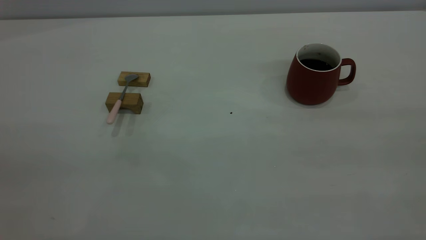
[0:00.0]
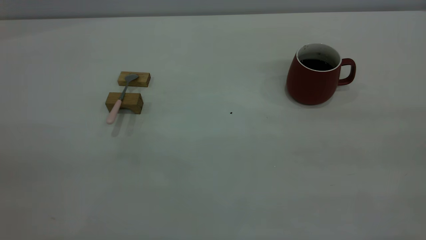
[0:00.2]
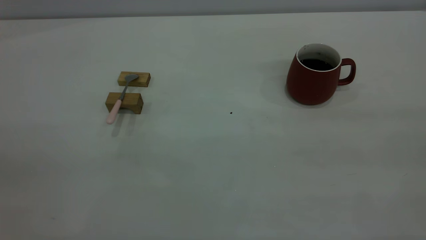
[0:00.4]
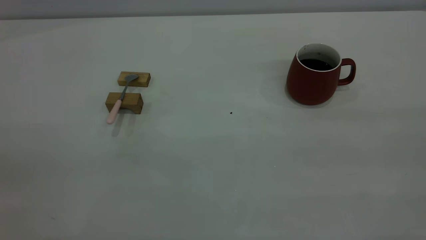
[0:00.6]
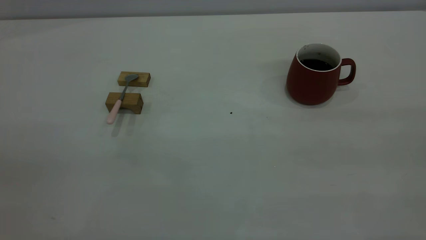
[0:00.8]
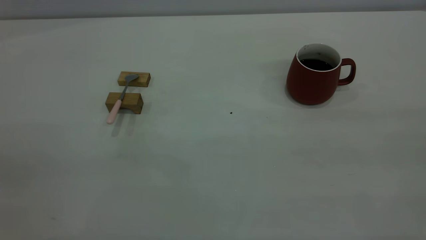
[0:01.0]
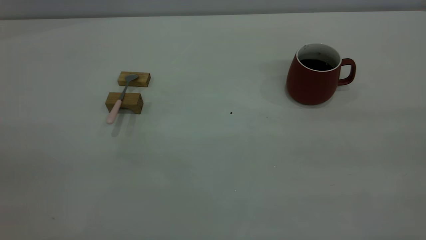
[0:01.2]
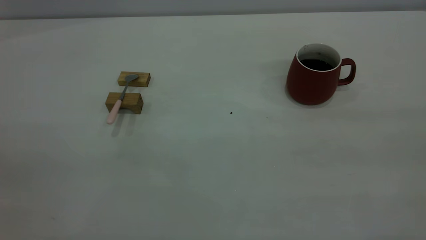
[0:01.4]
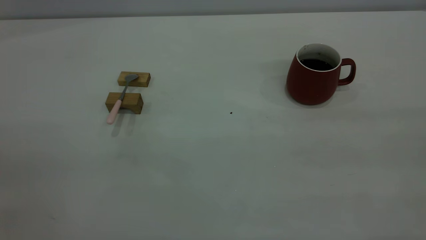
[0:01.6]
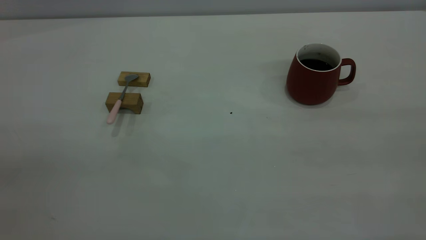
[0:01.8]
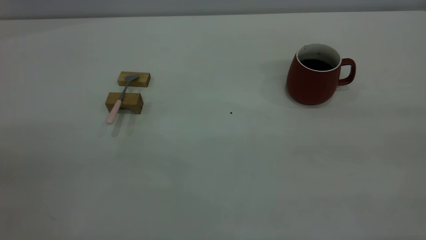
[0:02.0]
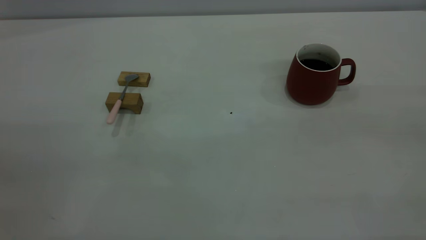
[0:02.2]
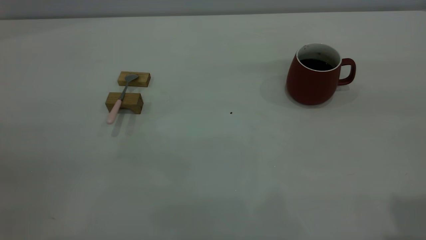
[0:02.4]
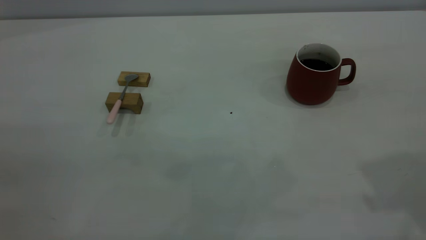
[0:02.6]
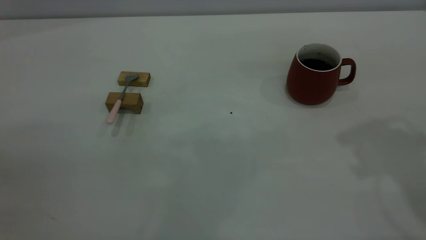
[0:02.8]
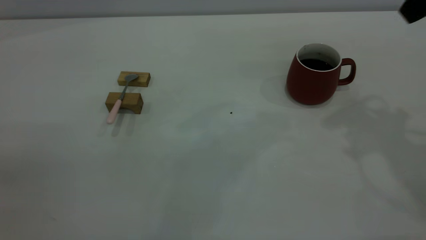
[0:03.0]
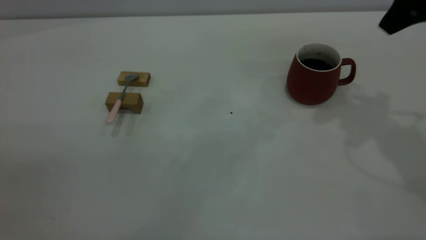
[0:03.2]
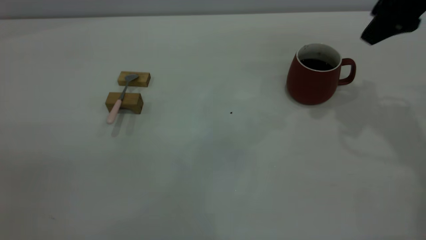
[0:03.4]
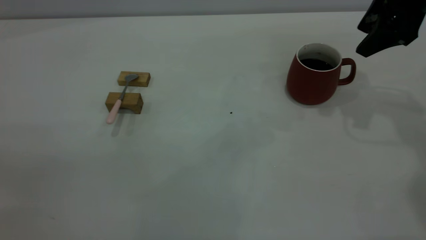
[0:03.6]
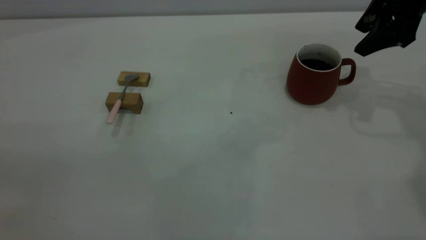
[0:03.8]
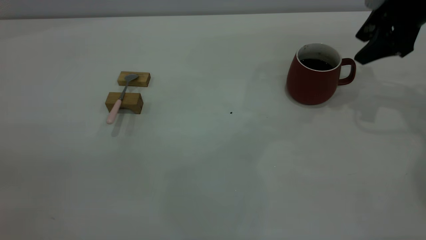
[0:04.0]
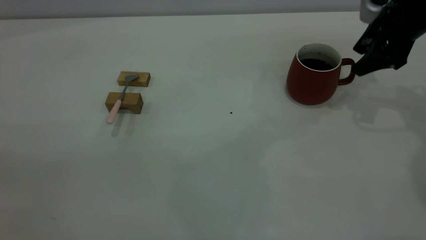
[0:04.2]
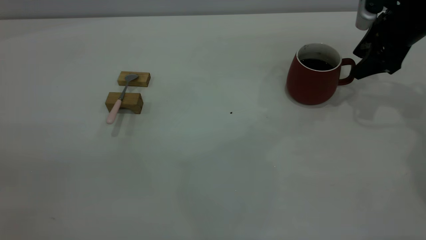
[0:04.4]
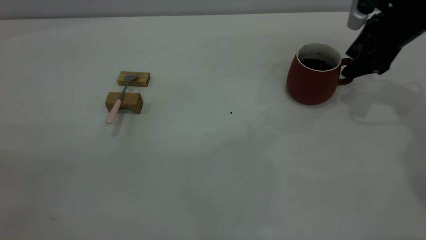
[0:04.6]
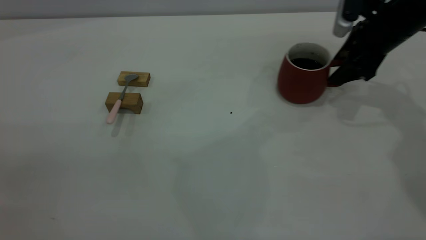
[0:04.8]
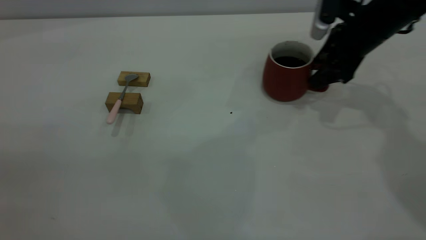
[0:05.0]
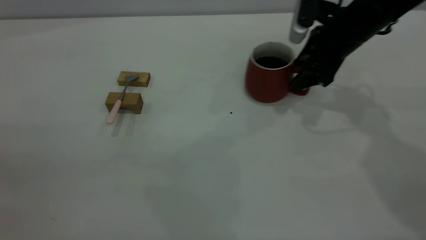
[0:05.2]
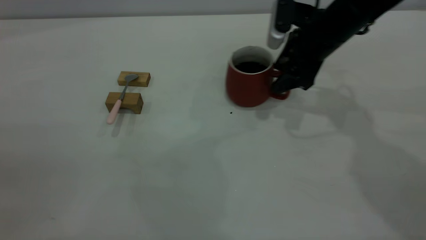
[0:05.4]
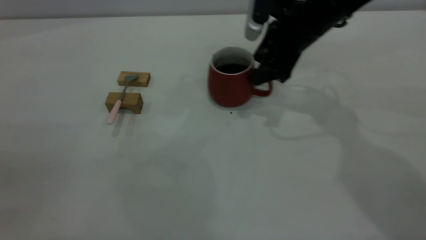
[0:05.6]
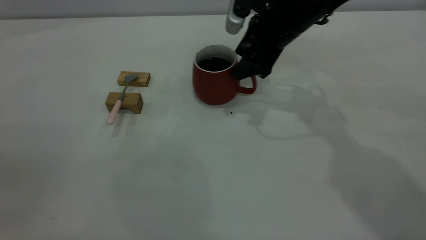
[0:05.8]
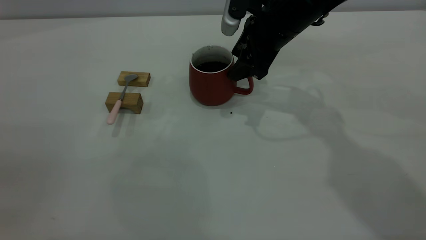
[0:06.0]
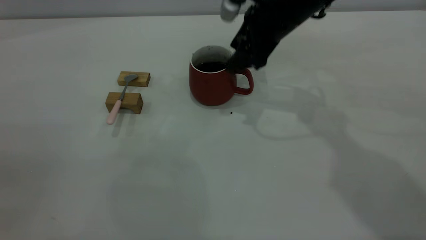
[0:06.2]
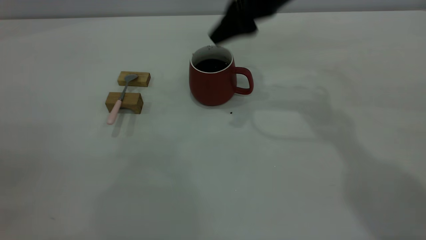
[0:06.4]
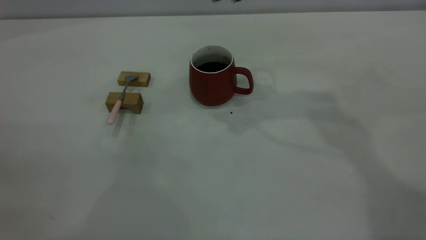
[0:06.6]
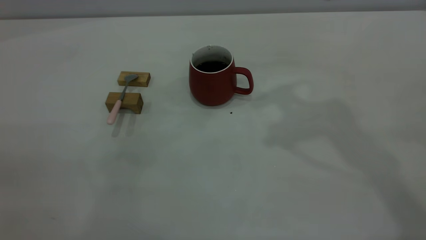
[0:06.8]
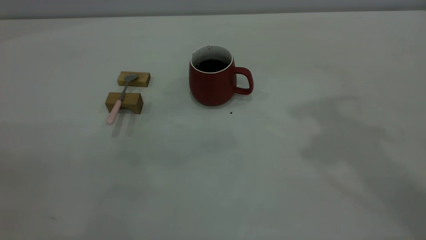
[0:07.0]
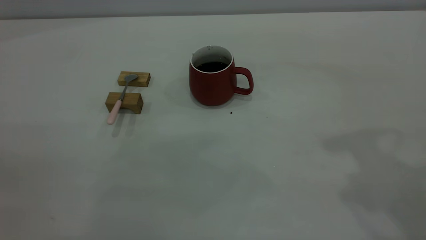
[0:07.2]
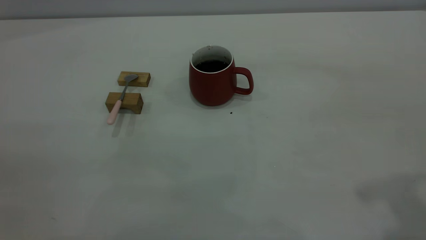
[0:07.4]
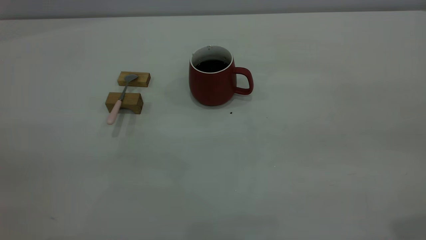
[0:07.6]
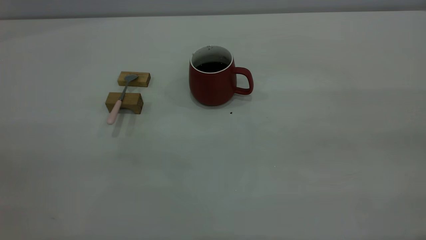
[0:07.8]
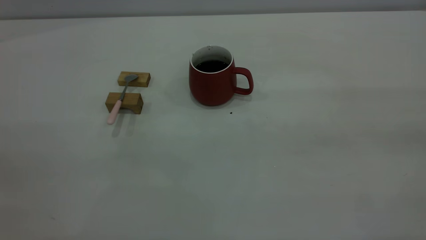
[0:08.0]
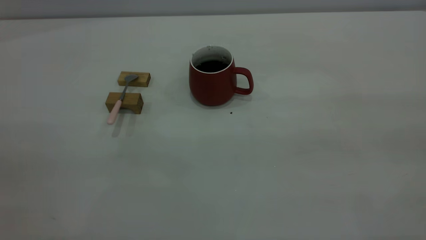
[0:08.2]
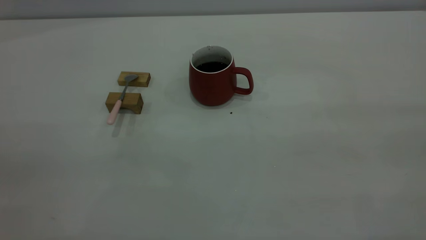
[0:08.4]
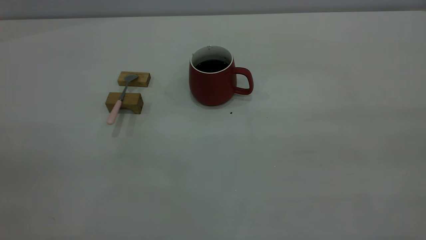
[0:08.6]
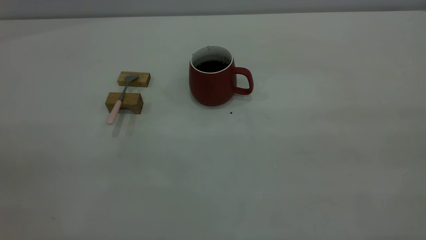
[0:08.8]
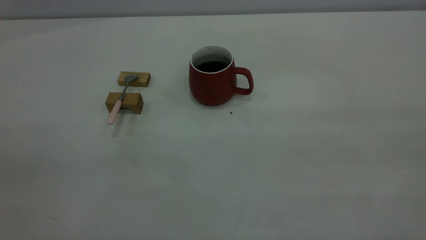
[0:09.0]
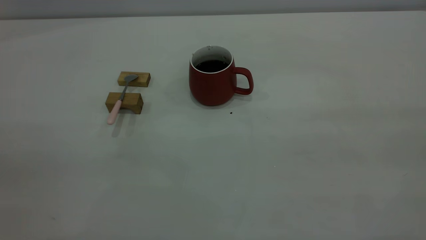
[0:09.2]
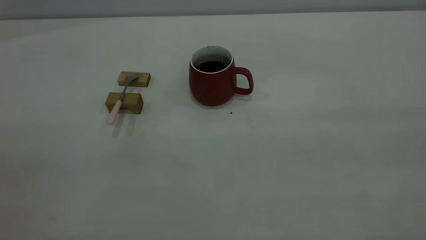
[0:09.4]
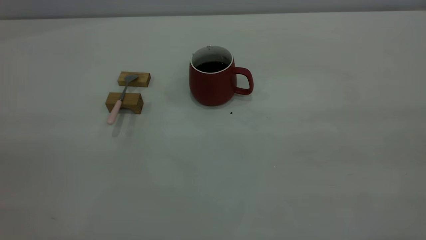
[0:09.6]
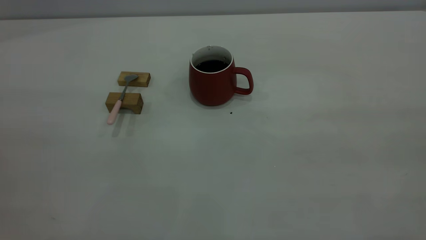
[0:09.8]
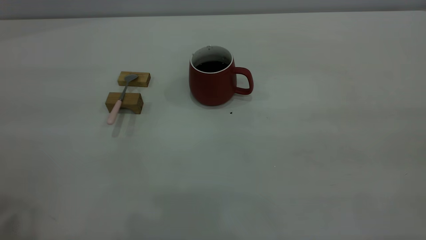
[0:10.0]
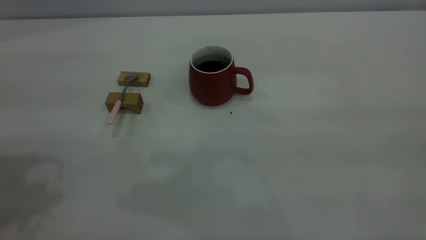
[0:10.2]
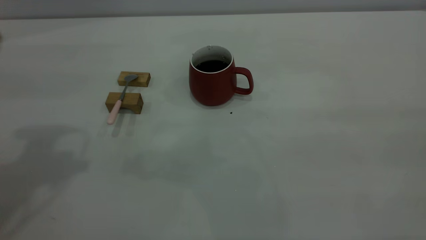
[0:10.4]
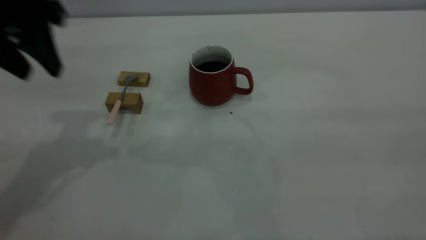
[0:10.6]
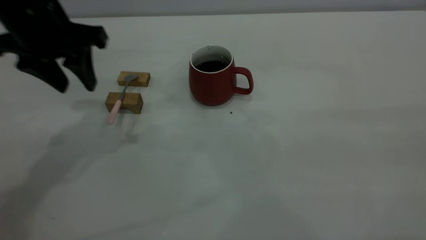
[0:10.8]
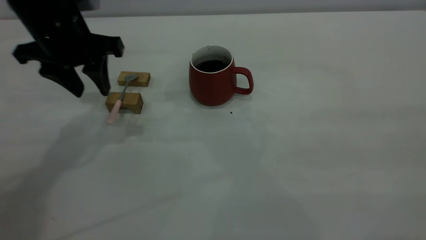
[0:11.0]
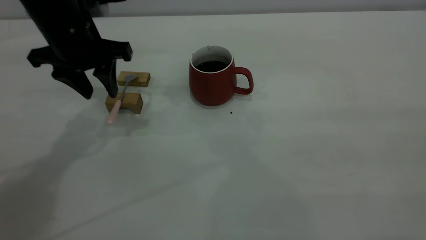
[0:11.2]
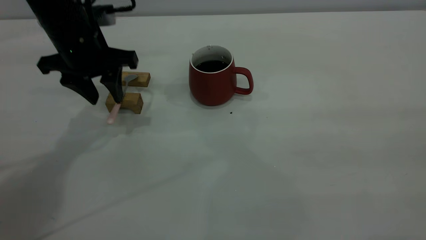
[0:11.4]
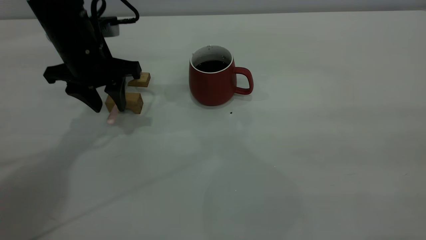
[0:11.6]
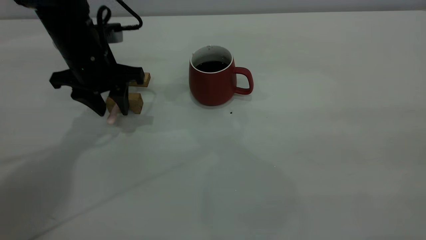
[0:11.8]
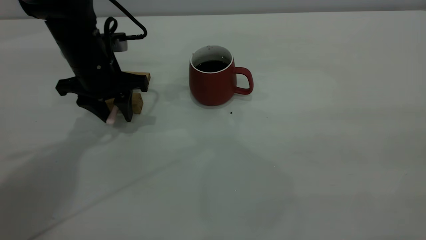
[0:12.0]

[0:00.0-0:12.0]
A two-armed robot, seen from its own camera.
Step, 0:00.0 to 0:06.2: Move the cup with coffee to the center of view.
0:00.0 to 0:01.6: Neither gripper changes place.
0:03.0 to 0:04.4: The right gripper moves downward and forward, approximately 20 cm.
0:04.4 to 0:06.0: The right gripper goes approximately 20 cm to the left.
0:06.0 to 0:07.6: The right gripper heads backward, upward and to the right, covering about 40 cm.
0:10.4 to 0:12.0: The left gripper is displaced downward and forward by roughly 25 cm.

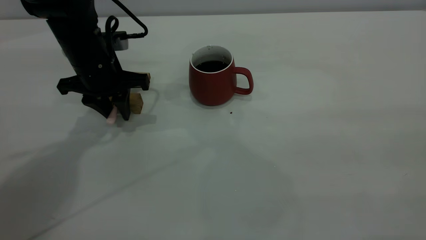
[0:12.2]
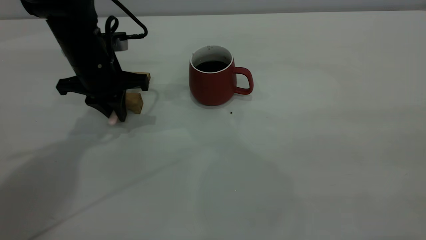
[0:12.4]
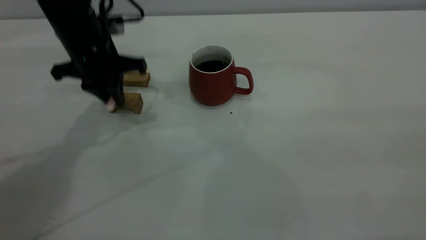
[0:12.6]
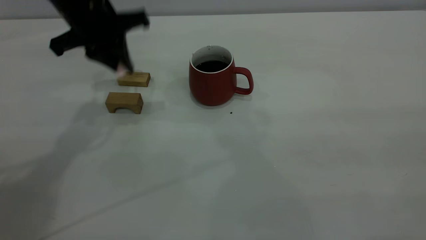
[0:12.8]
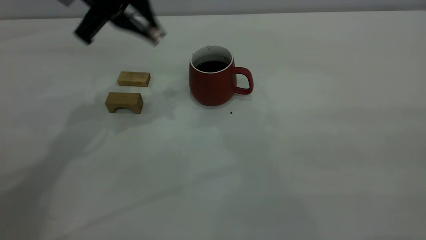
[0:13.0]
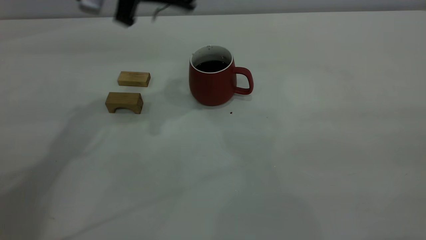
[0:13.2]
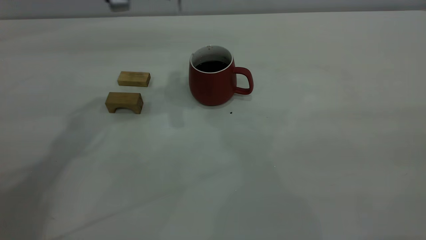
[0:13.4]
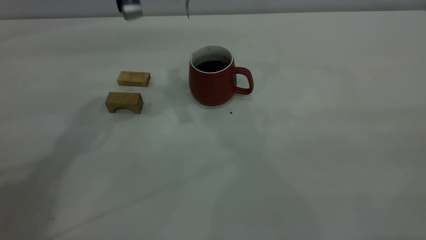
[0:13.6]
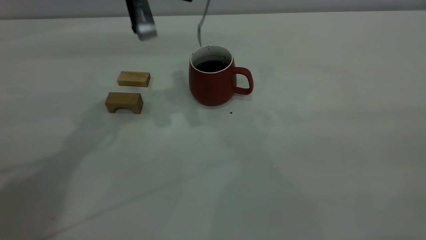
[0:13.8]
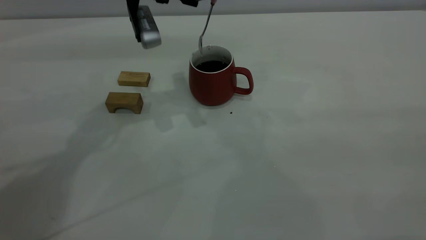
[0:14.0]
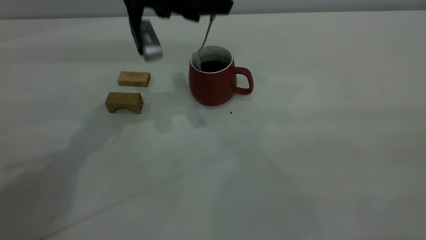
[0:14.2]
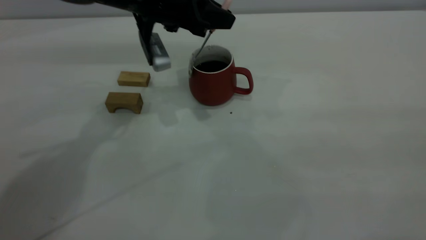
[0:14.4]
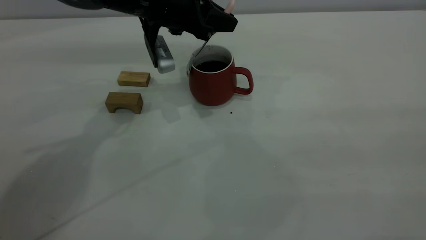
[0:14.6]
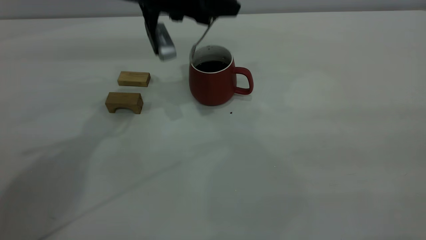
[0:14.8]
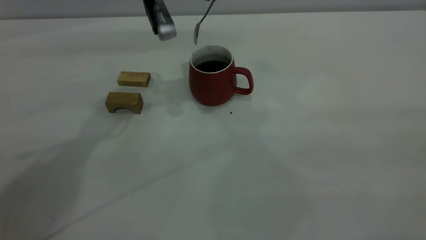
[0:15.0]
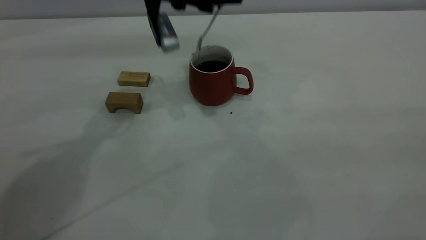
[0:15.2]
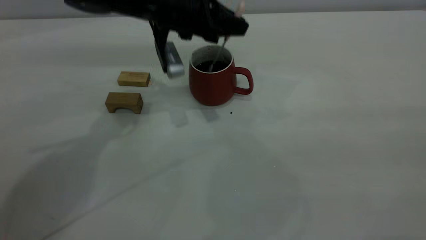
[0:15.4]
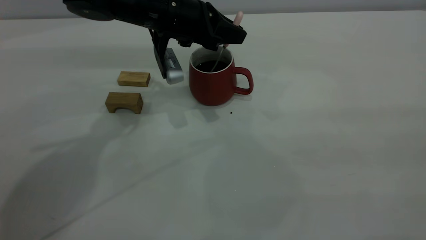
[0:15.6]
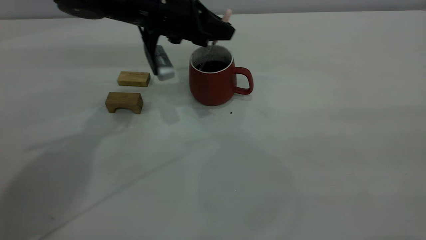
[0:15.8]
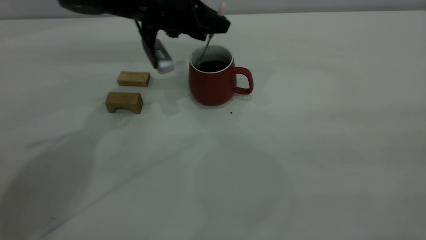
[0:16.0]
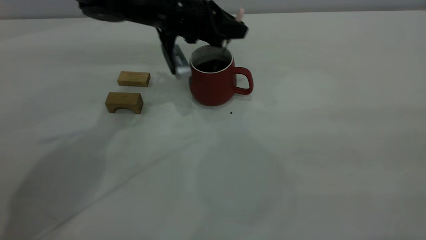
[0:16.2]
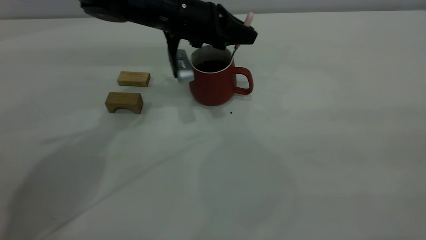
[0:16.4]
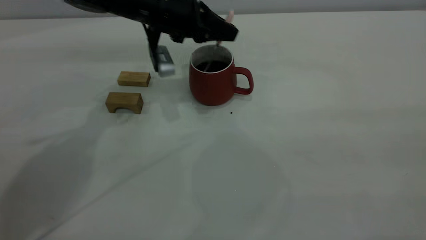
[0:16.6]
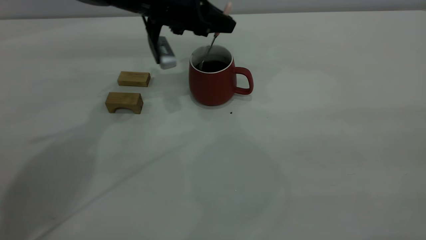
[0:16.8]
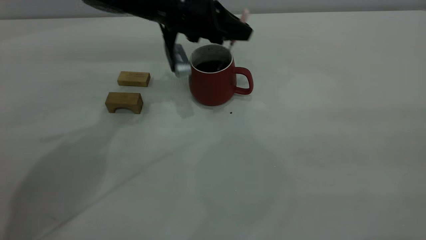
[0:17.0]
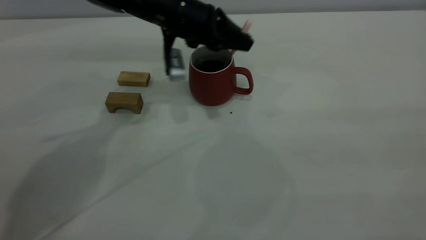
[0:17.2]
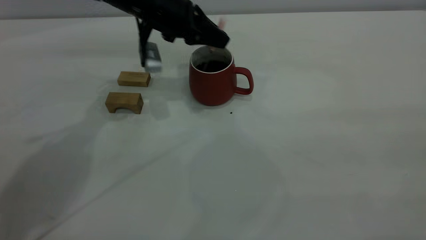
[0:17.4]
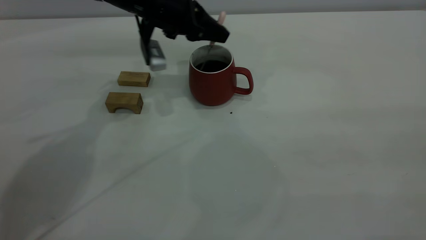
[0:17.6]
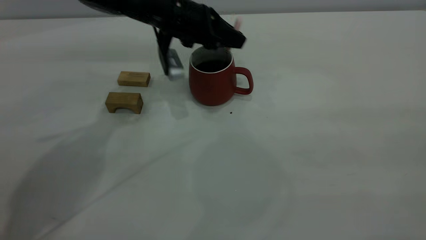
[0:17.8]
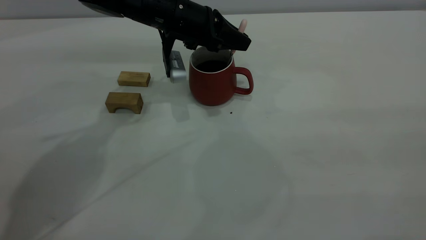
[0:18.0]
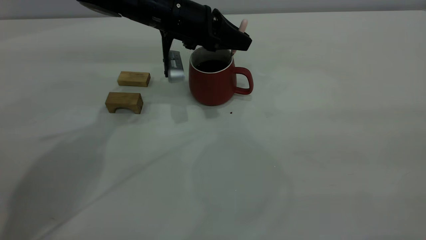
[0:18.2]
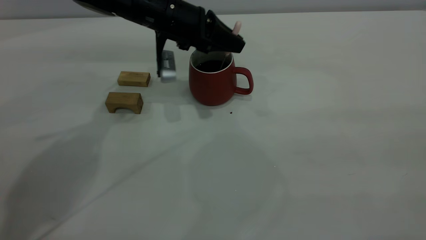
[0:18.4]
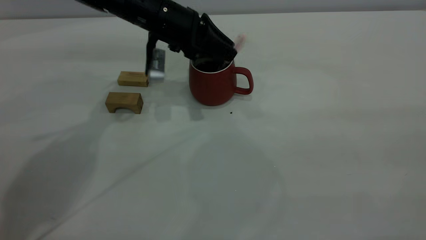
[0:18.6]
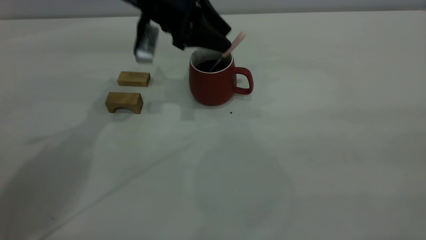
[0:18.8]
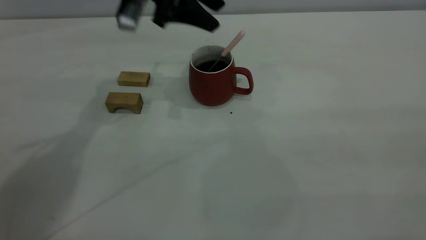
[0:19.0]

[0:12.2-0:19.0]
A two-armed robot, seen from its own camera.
Step, 0:12.8 to 0:18.8: Stir the coffee in the cup.
0:12.2 to 0:13.6: The left gripper moves upward and to the right, about 15 cm.
0:15.0 to 0:16.2: The left gripper is displaced downward by roughly 10 cm.
0:16.2 to 0:17.6: There are only small adjustments of the grippers.
0:17.6 to 0:19.0: The left gripper moves upward, some 10 cm, and opens.
